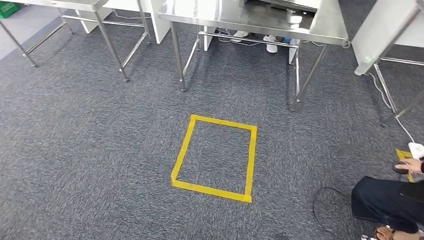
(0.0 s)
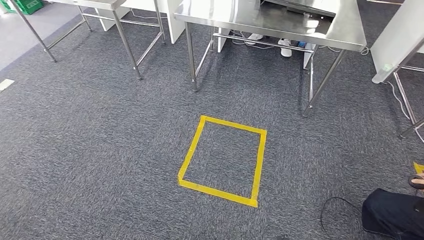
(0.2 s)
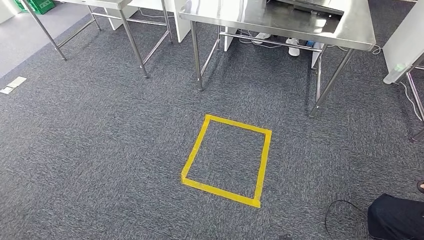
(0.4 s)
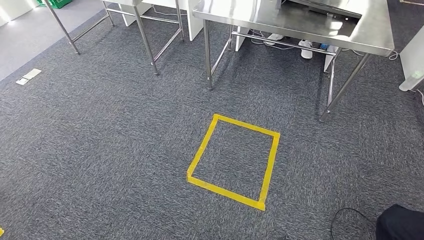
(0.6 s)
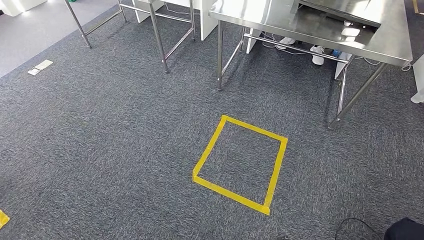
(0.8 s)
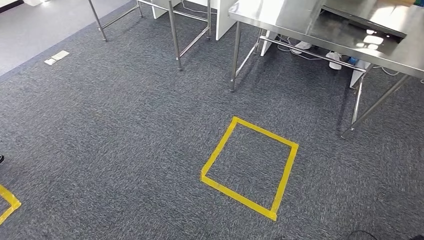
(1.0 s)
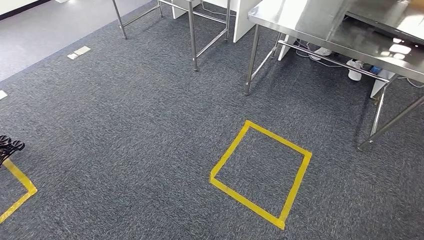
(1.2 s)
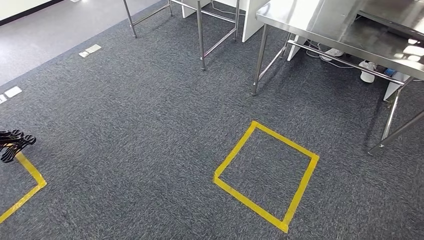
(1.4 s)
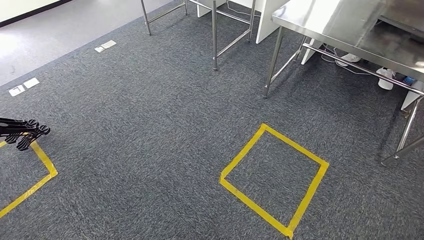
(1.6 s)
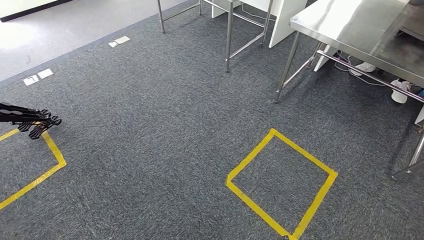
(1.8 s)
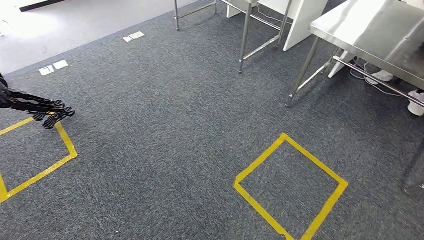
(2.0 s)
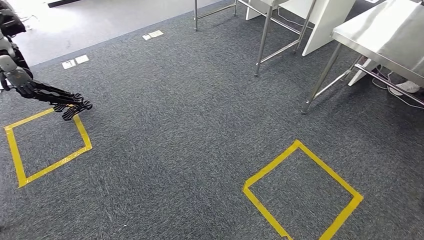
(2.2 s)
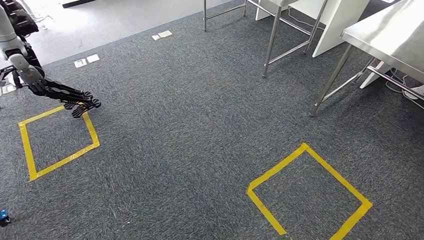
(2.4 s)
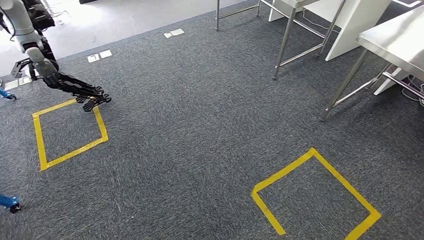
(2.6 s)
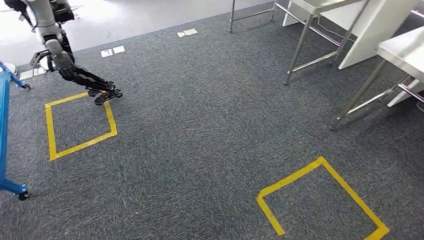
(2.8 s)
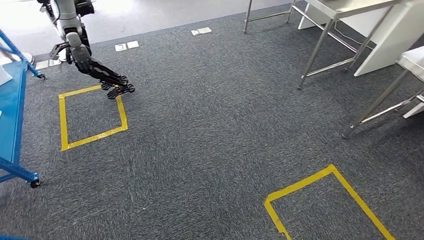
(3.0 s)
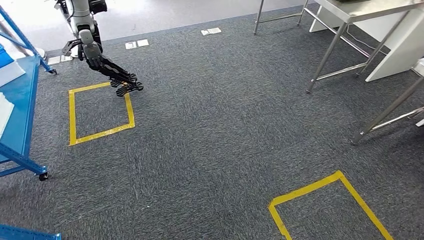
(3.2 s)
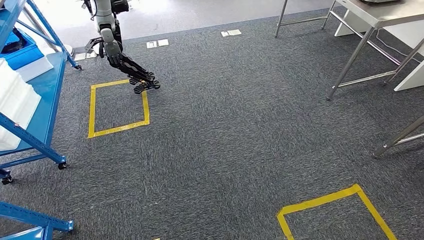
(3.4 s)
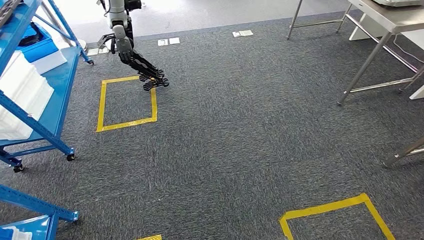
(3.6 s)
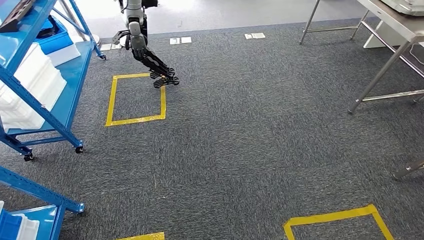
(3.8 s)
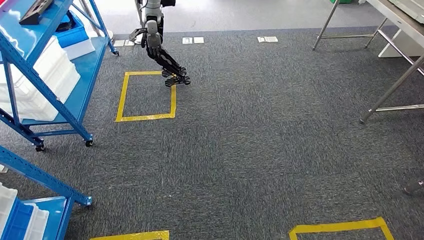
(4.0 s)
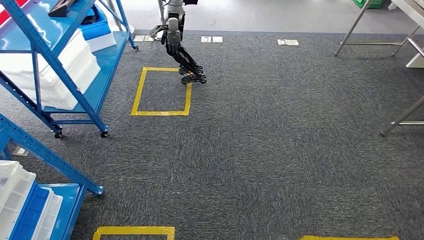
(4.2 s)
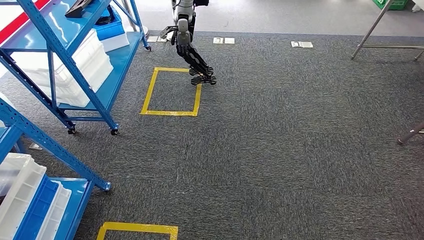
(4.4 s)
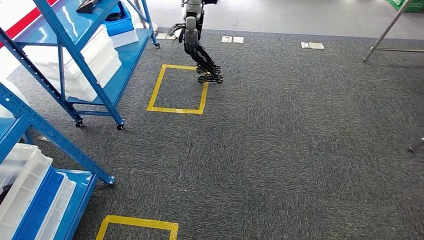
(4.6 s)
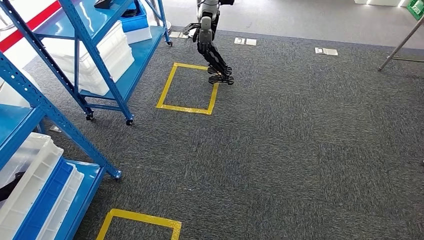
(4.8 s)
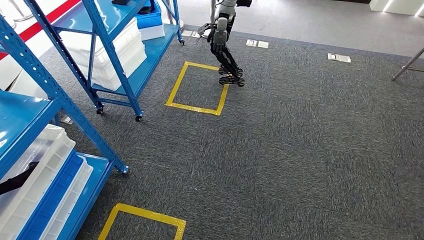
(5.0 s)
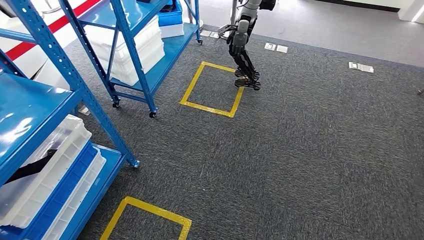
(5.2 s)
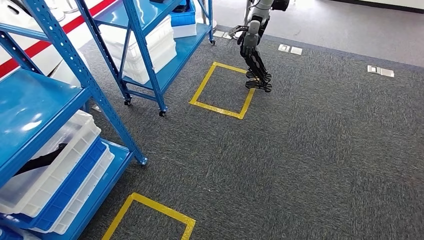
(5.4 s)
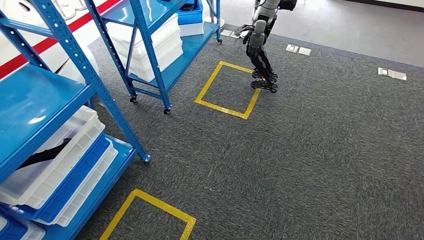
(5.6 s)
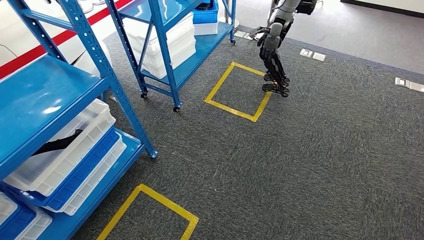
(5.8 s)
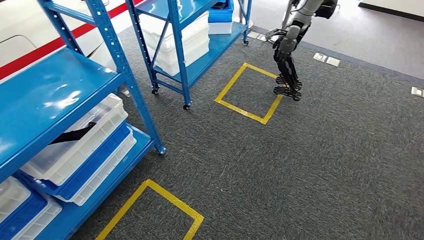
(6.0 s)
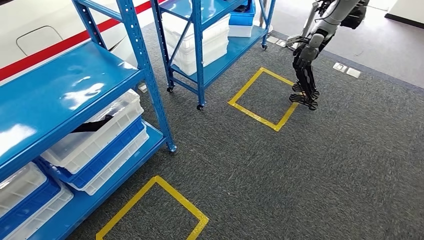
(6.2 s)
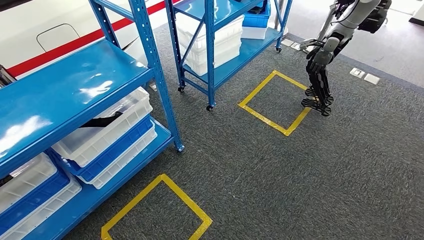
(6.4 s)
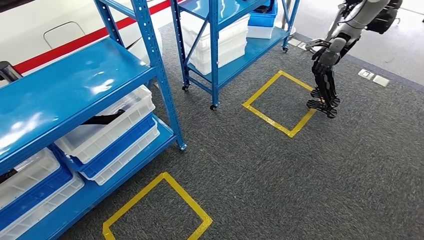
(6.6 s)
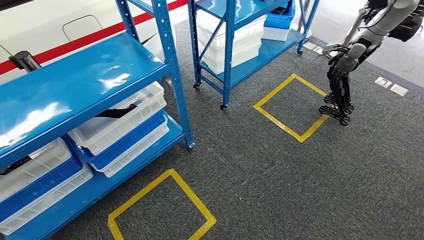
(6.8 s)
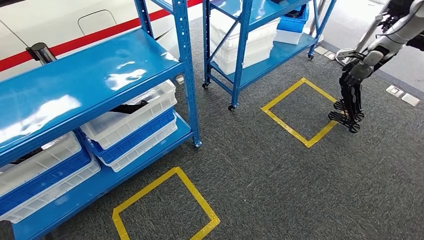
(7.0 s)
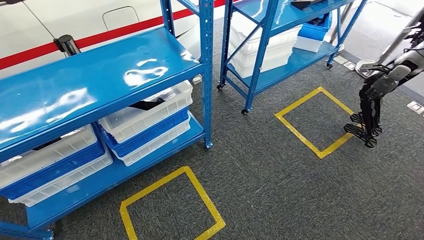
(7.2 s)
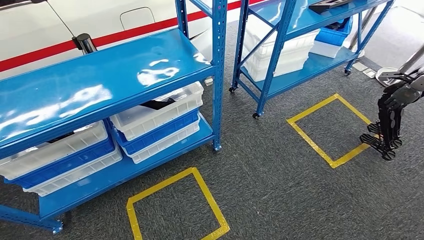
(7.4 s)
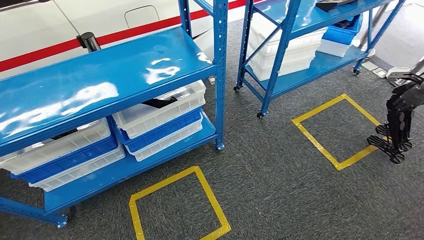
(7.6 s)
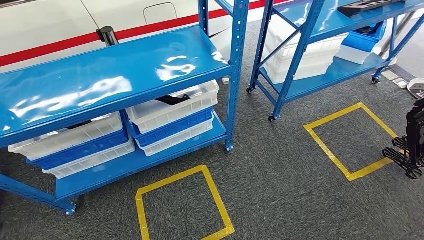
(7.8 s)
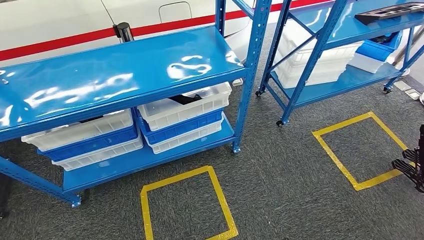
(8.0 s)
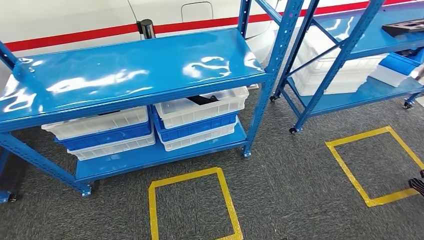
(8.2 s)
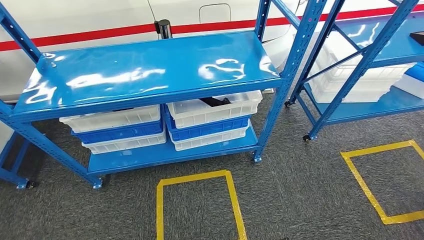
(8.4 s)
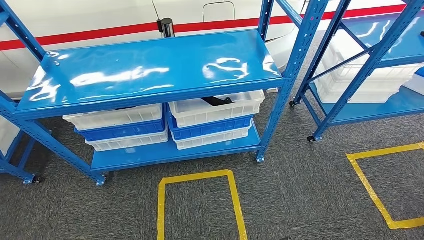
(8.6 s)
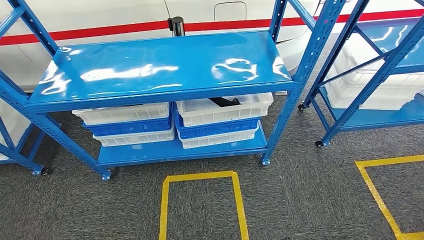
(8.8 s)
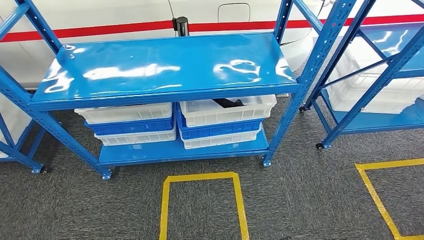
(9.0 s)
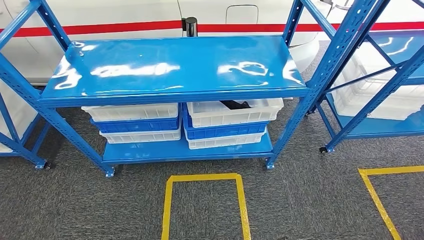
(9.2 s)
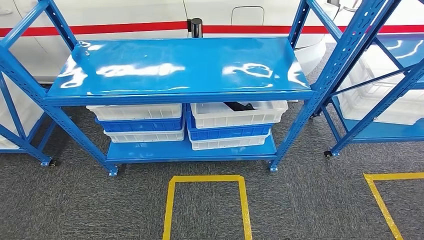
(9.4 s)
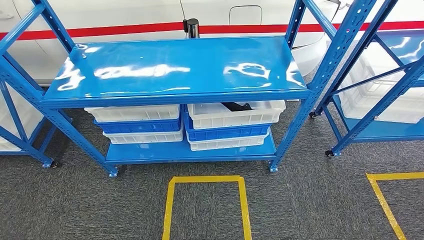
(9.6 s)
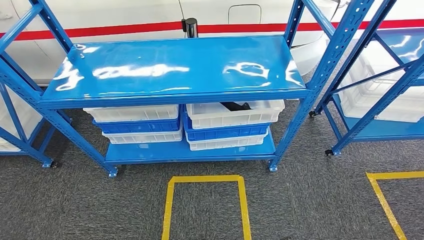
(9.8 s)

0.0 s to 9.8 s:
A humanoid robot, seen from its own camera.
Step, 0.0 to 9.8 s: Move to the initial position of the shelf.
